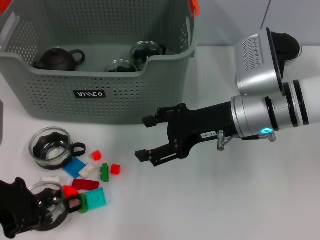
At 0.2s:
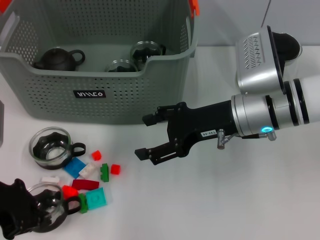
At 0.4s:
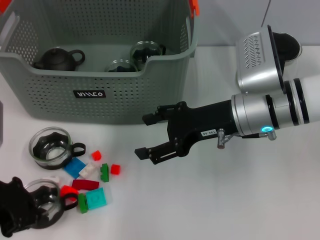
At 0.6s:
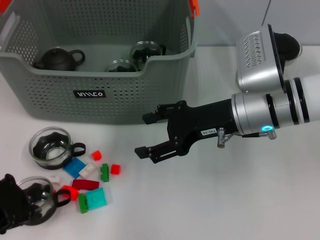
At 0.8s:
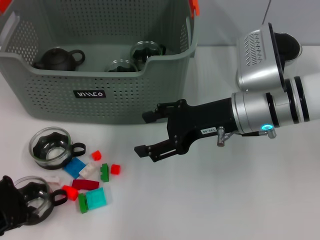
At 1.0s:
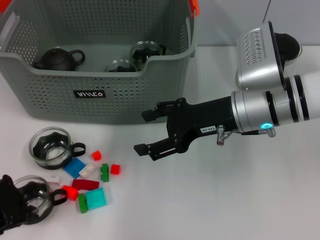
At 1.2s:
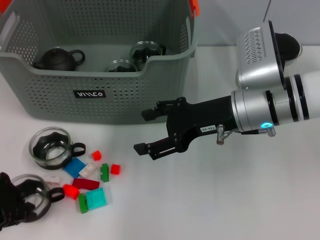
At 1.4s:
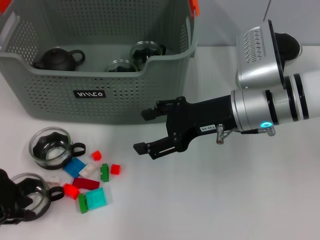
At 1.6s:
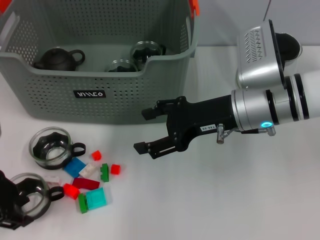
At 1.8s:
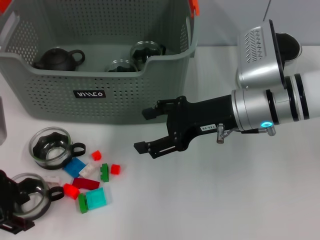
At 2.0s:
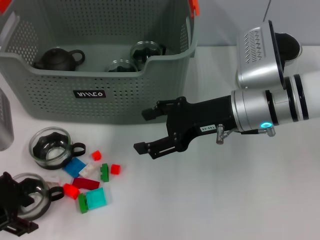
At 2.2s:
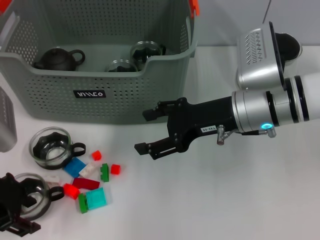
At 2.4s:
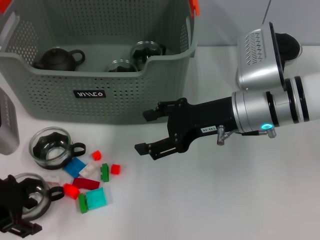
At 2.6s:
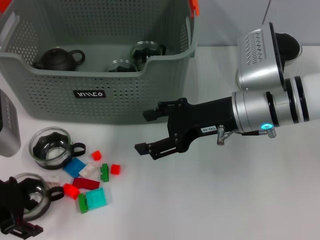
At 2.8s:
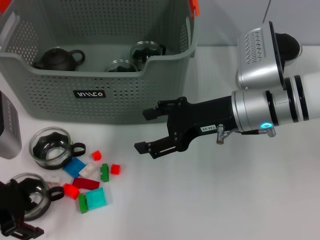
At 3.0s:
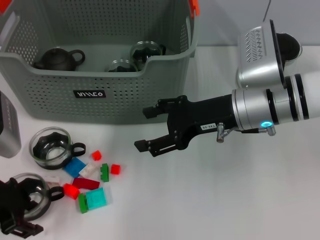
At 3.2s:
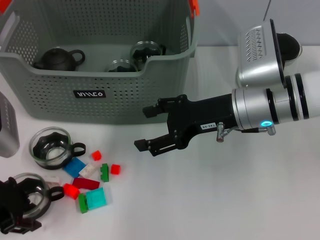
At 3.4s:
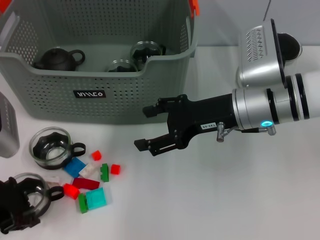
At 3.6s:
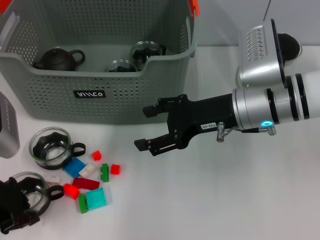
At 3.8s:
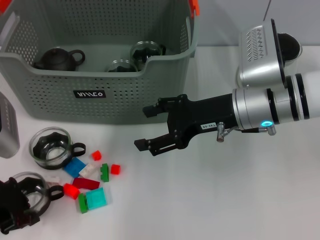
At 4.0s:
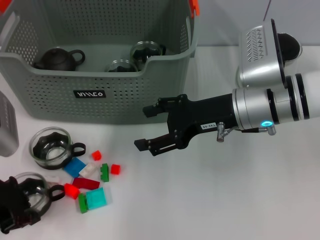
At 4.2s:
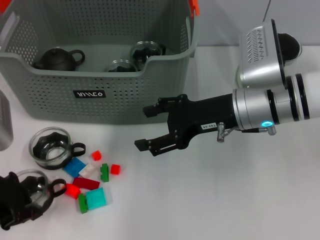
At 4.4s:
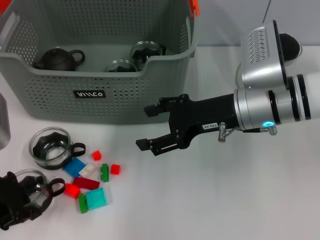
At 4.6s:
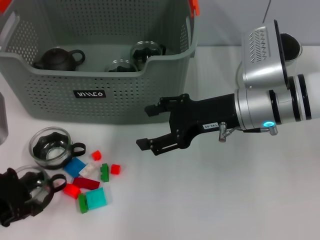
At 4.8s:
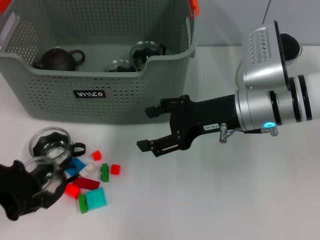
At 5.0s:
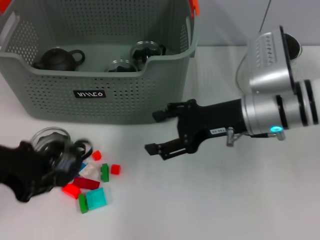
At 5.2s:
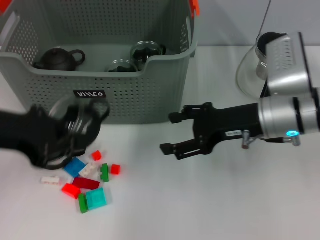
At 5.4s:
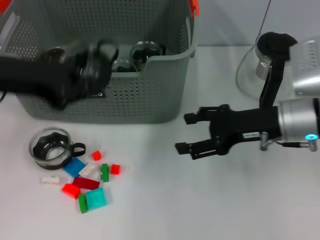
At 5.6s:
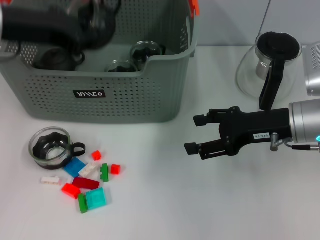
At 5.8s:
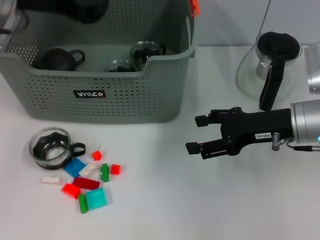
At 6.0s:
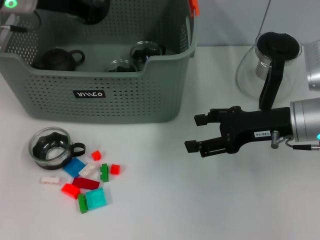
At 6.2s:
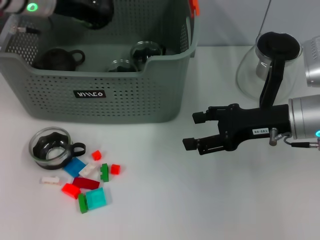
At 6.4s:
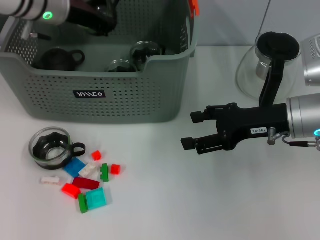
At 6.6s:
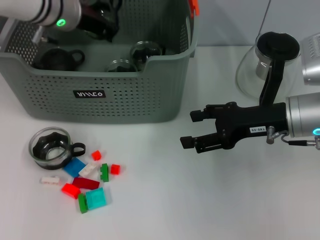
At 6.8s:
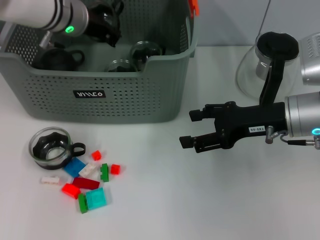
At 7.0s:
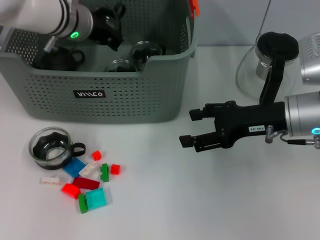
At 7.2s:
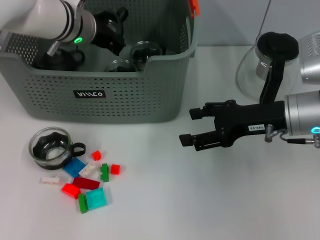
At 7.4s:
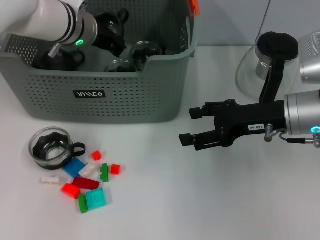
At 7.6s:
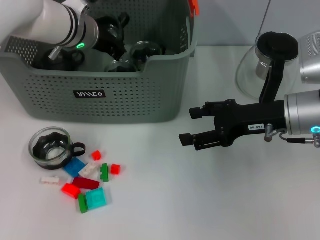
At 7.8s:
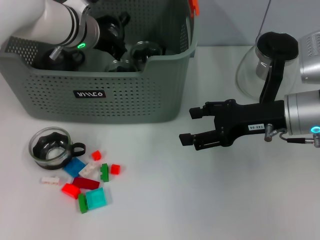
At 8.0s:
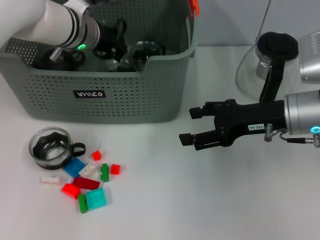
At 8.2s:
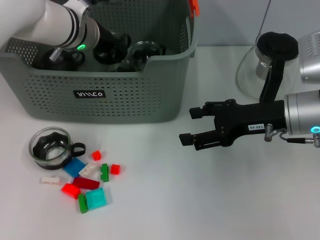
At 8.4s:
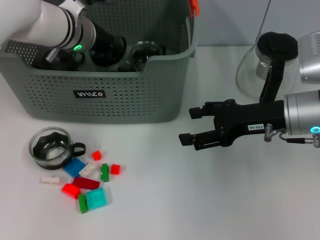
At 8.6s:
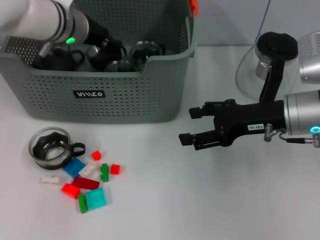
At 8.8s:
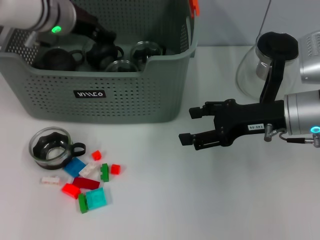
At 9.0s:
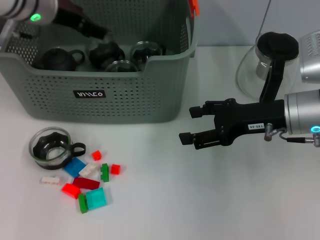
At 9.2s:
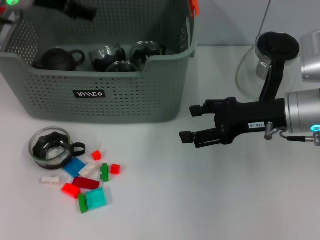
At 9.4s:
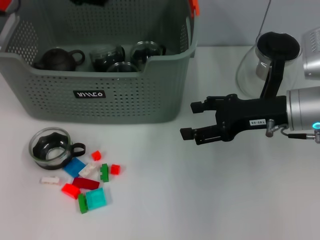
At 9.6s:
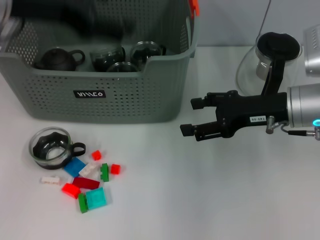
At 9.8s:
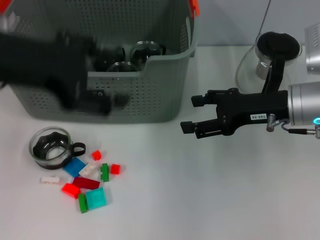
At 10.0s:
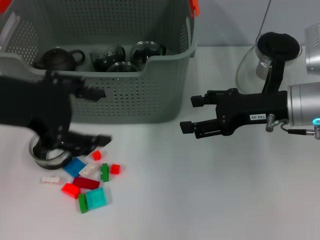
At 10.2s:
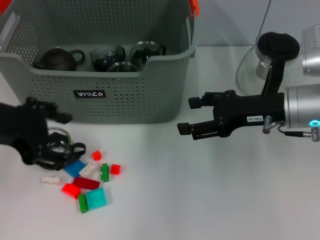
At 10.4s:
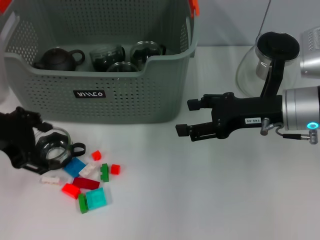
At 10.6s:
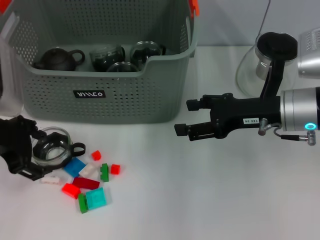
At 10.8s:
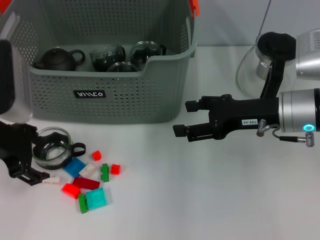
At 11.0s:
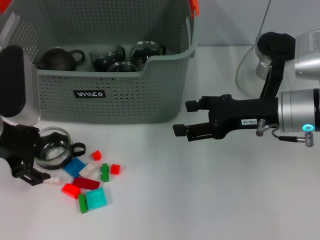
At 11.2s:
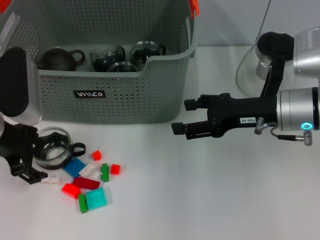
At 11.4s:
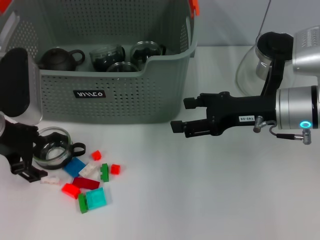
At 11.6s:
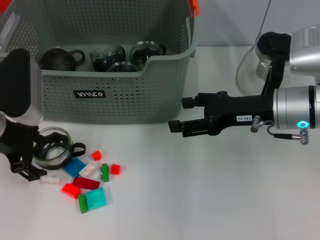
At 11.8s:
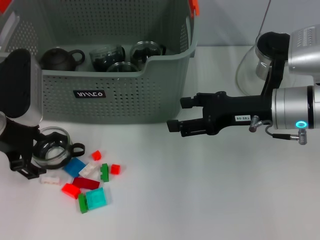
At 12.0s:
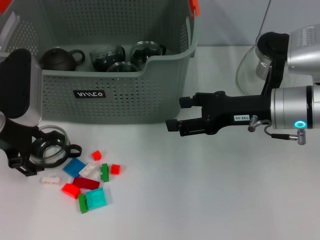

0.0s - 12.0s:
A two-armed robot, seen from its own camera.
Task of the whole recording: pick up the teacup on the table and place it into the storage bin, pick up the block on the table and place it into the storage bin.
Step, 0.0s - 9.2s: Place the cup in the storage box with left gripper.
0.0s - 3.0s: The grippers move only a little.
3.0s - 4.4s: The left gripper closes its fingers.
4.4s - 6.0s: The left gripper heads forward and upward, covering approximately 20 cm; the right gripper is displaced to the right by some 10 cm.
6.0s - 7.6s: The left gripper travels to the right and downward by some 10 cm.
7.6s - 9.0s: The left gripper moves upward, approximately 5 cm, and opens its fingers.
9.0s - 10.4s: The left gripper travels backward and to the left by some 15 cm.
10.4s - 12.0s: The left gripper changes place by approximately 5 cm.

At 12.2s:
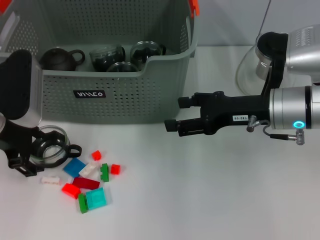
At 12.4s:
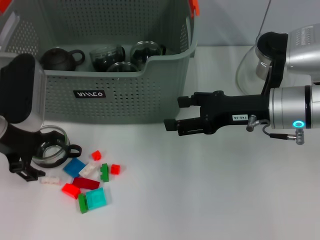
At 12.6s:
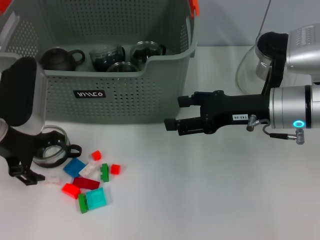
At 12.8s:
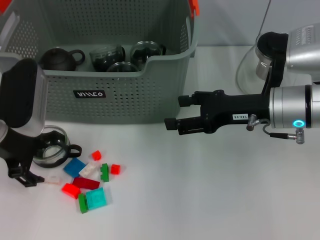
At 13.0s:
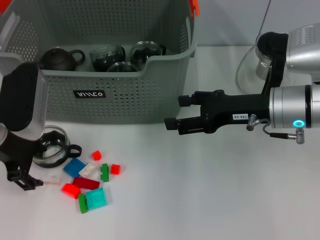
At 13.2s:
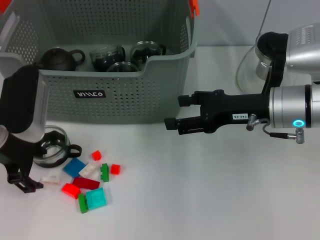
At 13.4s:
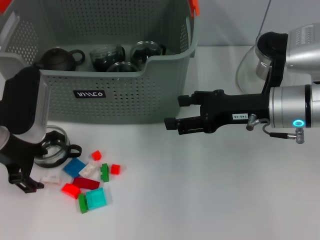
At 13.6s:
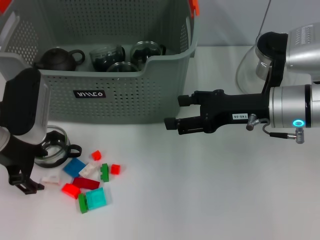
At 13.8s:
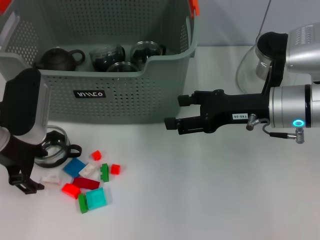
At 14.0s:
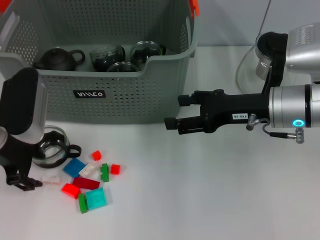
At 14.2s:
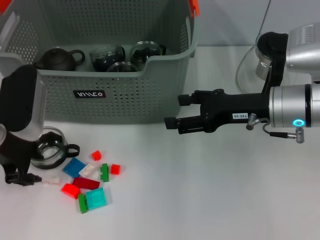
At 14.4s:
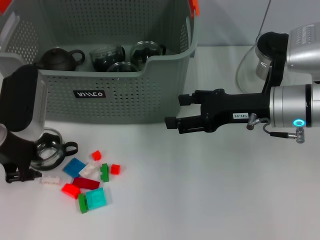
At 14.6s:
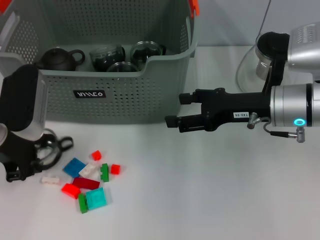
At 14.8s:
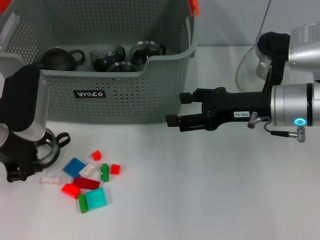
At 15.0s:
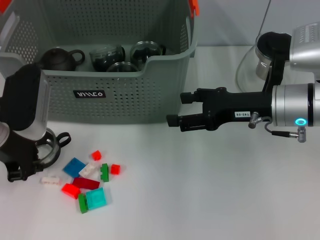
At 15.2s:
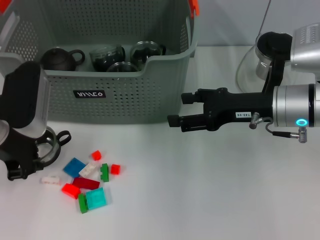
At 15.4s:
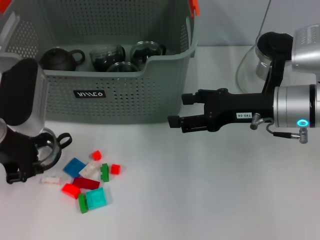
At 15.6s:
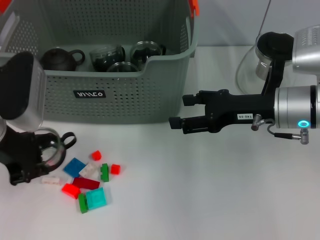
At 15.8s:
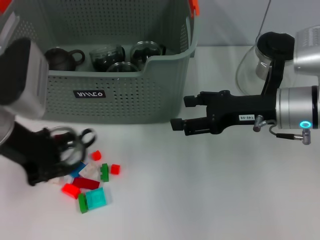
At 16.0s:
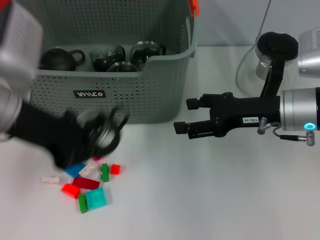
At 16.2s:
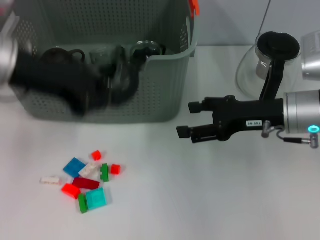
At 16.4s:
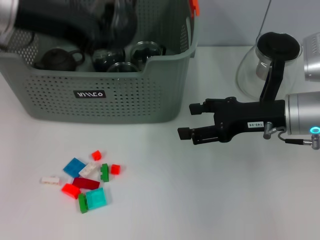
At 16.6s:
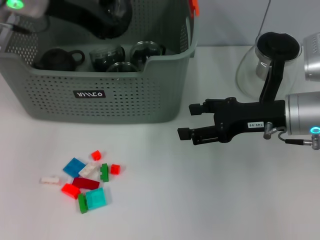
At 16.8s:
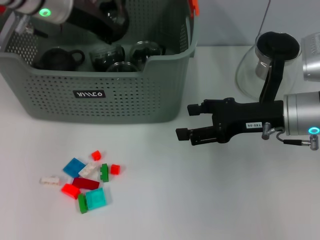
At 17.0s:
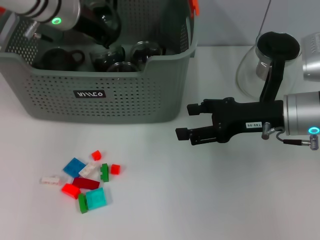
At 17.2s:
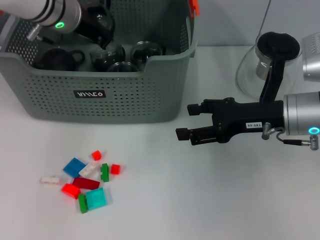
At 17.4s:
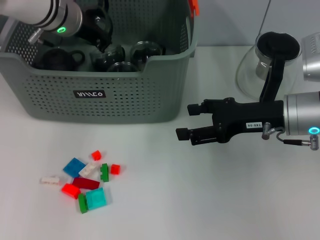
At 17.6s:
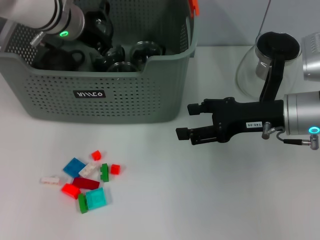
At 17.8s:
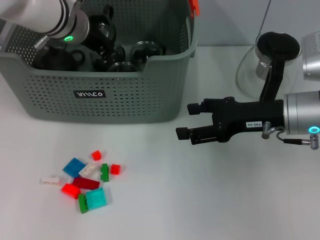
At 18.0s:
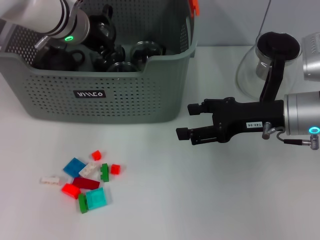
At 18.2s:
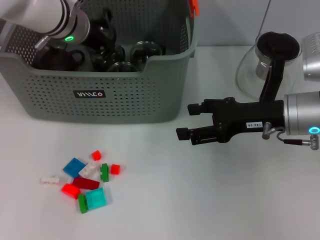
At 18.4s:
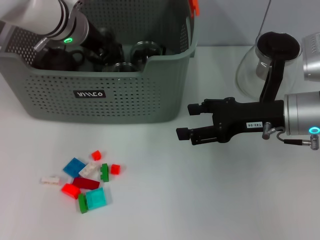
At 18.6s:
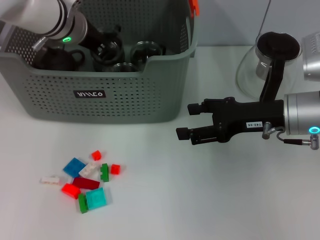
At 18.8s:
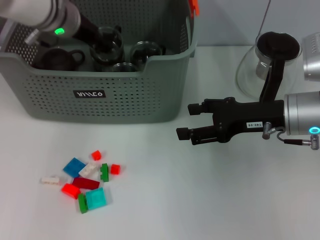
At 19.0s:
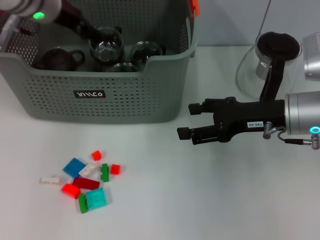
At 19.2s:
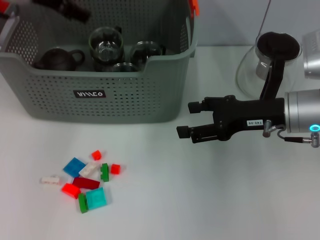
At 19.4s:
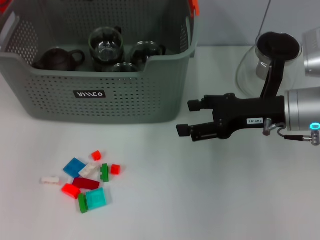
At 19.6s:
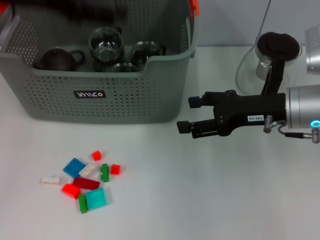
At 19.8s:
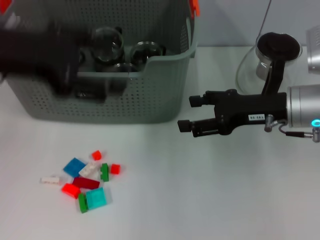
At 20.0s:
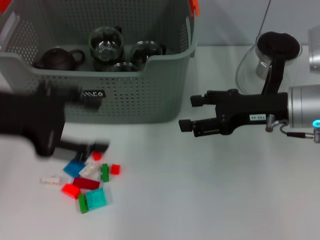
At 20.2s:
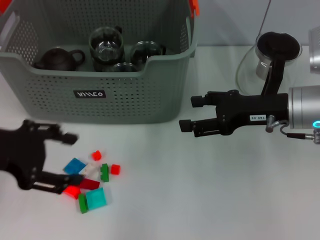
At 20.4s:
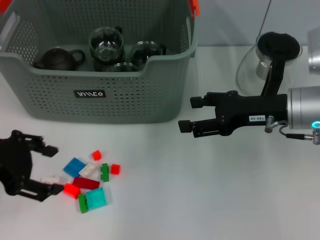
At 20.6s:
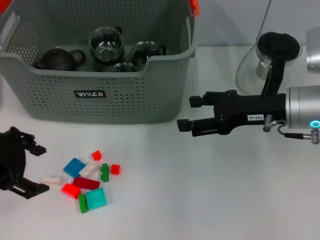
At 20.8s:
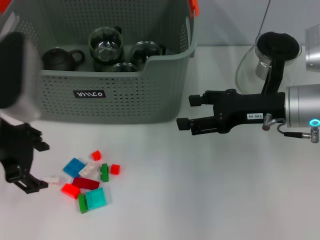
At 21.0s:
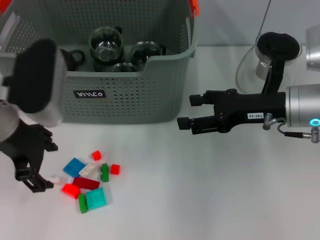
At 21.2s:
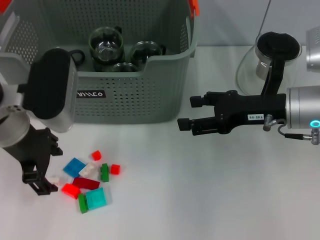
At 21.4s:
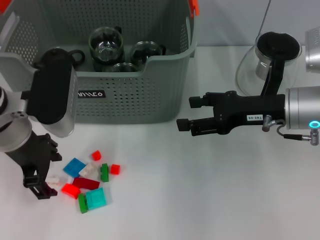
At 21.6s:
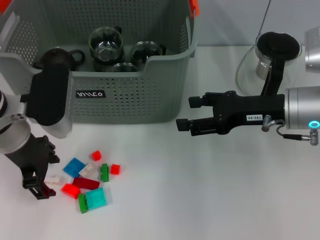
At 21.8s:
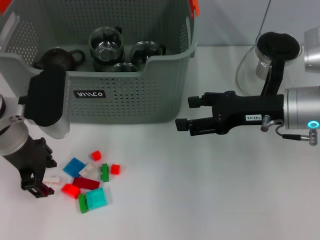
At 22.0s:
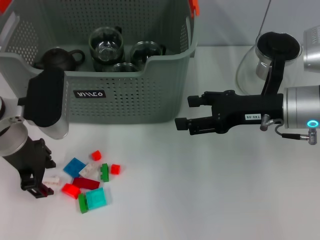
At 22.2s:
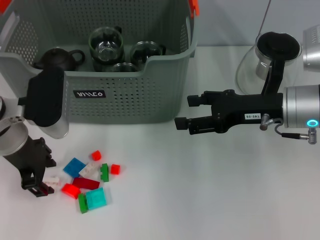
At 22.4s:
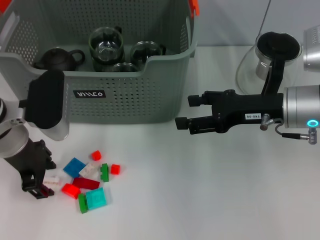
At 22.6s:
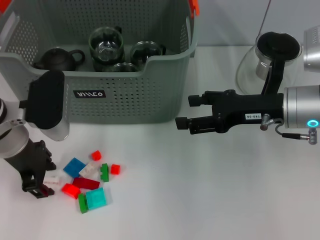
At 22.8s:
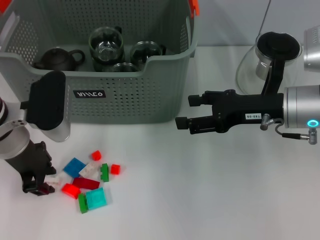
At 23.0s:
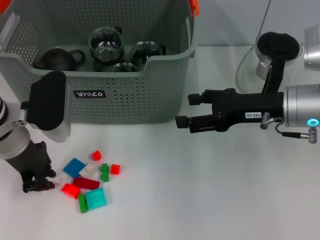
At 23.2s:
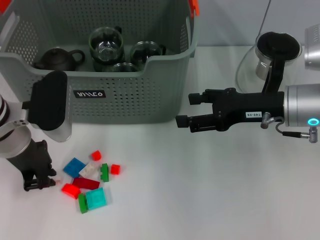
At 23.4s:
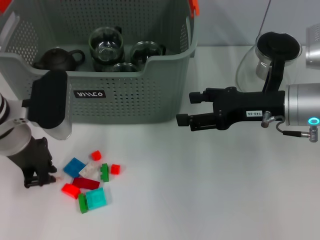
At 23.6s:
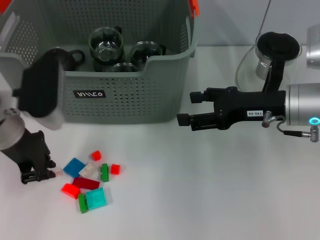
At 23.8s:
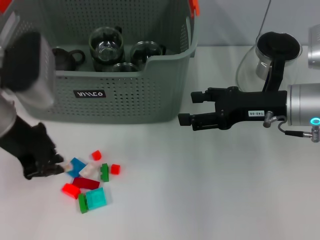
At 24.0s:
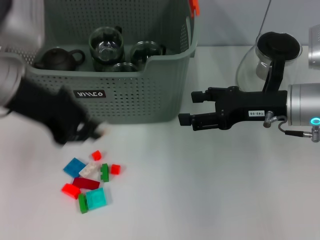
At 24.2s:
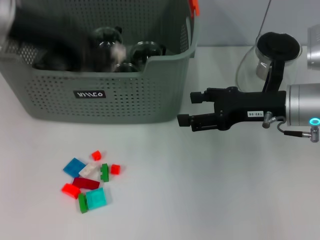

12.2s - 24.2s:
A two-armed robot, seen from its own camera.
Task of the whole recording: pick up the teacup on the table and place it into the storage bin, pick up the block on the table and place it into the storage bin.
Step, 12.2s - 14.6s: Grasp the cup with left gripper.
Step, 15.0s - 19.4s: Place the cup in the storage box with left gripper.
Step, 19.6s - 23.2s: Grasp the white block with left gripper.
12.2s - 13.8s: The grippers make only small movements.
13.8s - 15.2s: The left gripper closes its fingers.
15.2s - 16.6s: The left gripper heads upward, forward and to the right, covering roughly 15 cm.
16.6s - 18.2s: The left gripper is displaced downward by some 10 cm.
18.2s - 19.8s: The left gripper travels backward, upward and to the left by roughly 20 cm, and opens its fingers.
19.8s - 21.2s: The left gripper shifts some 10 cm downward.
21.2s - 22.6s: The left gripper shifts by some 5 cm.
22.6s - 24.2s: The left gripper travels upward by roughly 15 cm, and closes up.
